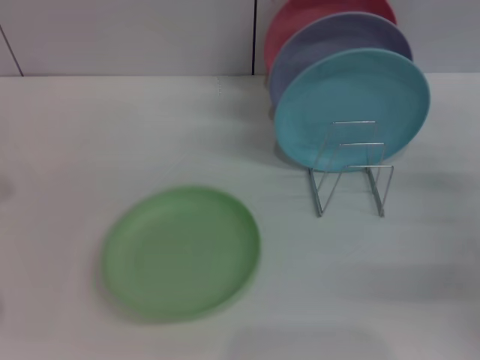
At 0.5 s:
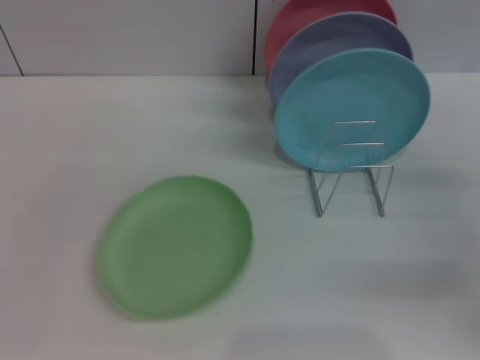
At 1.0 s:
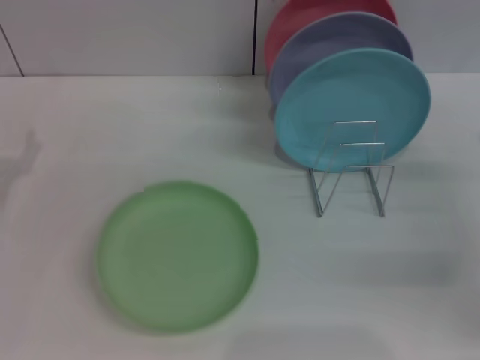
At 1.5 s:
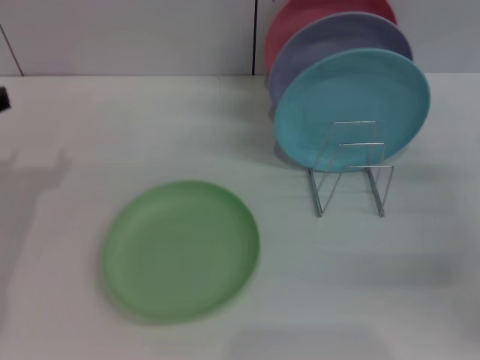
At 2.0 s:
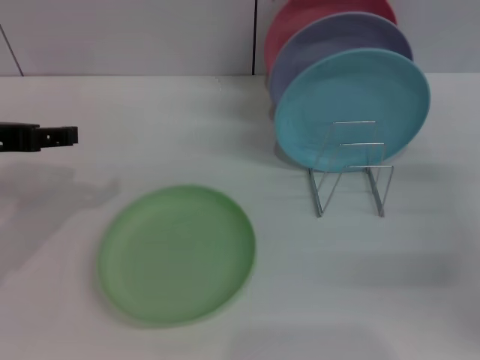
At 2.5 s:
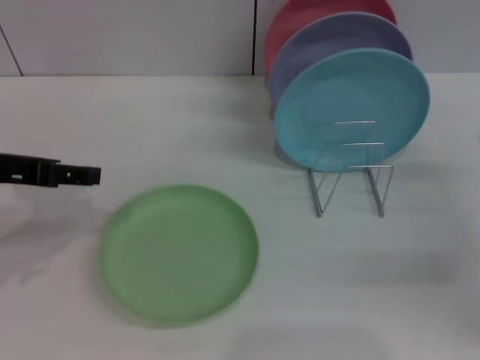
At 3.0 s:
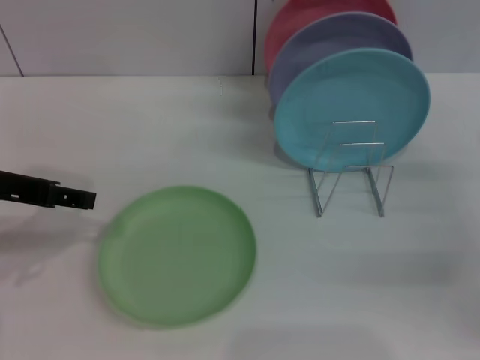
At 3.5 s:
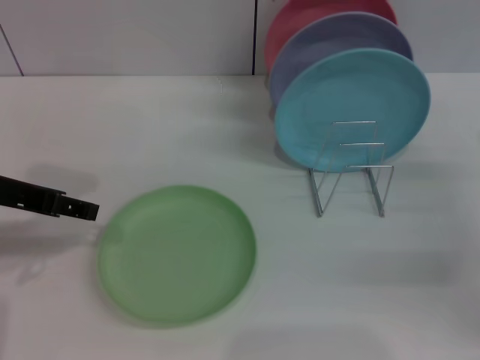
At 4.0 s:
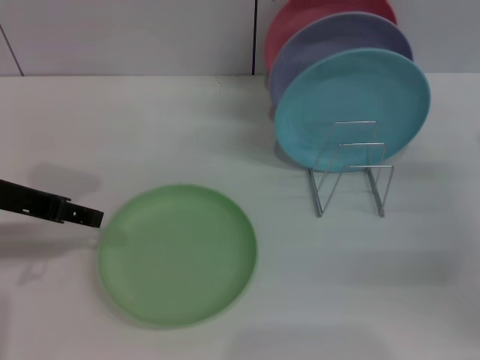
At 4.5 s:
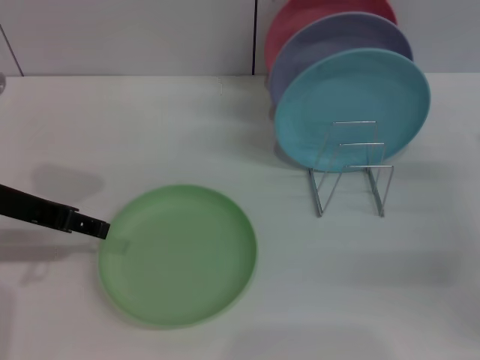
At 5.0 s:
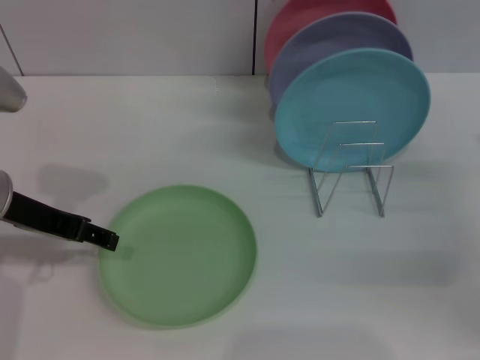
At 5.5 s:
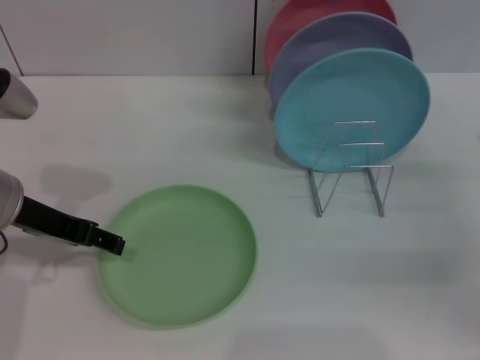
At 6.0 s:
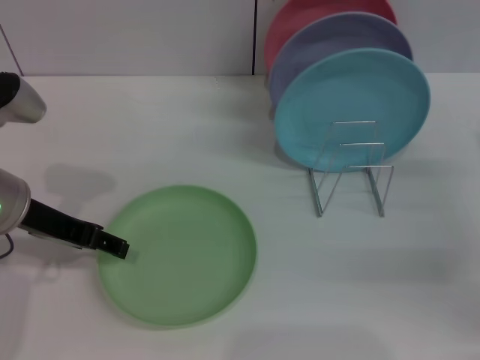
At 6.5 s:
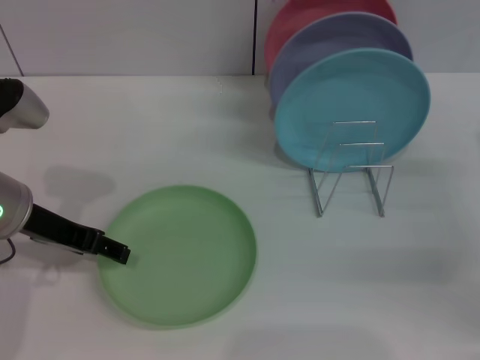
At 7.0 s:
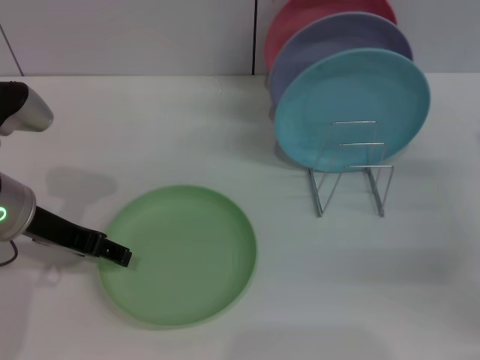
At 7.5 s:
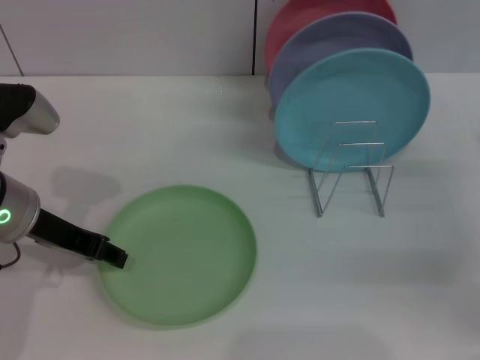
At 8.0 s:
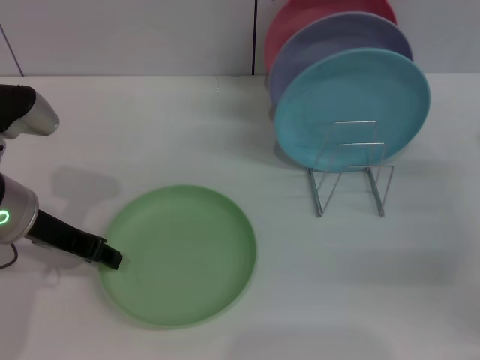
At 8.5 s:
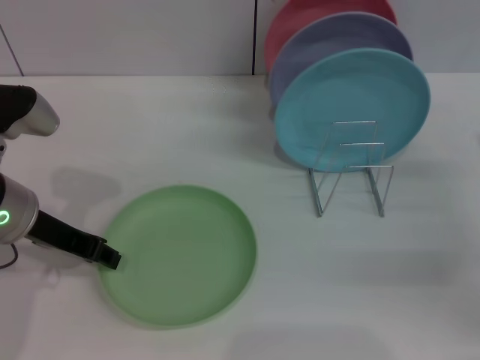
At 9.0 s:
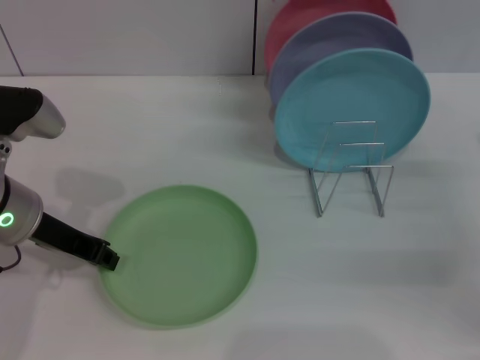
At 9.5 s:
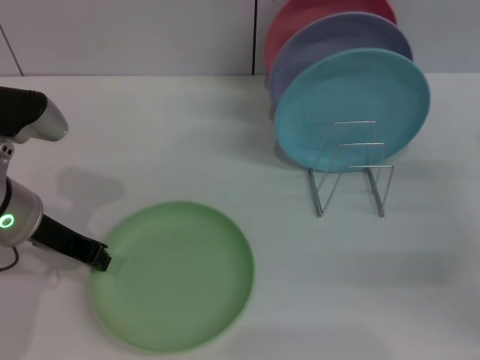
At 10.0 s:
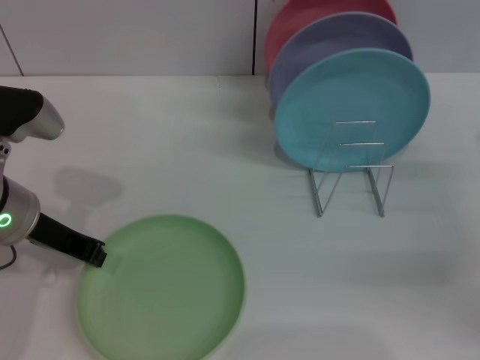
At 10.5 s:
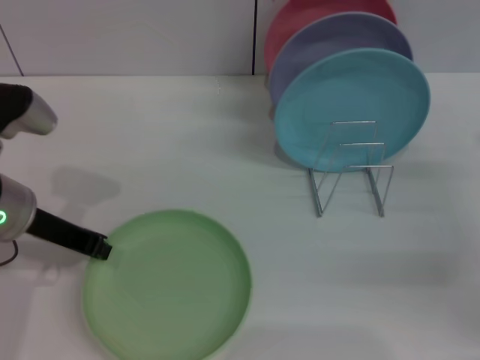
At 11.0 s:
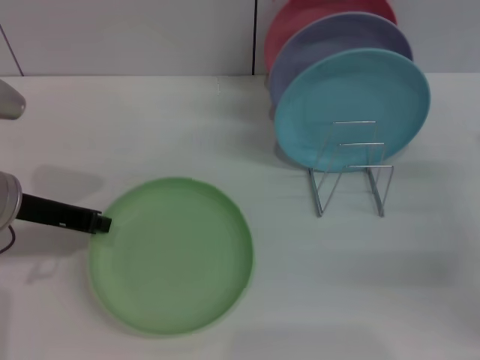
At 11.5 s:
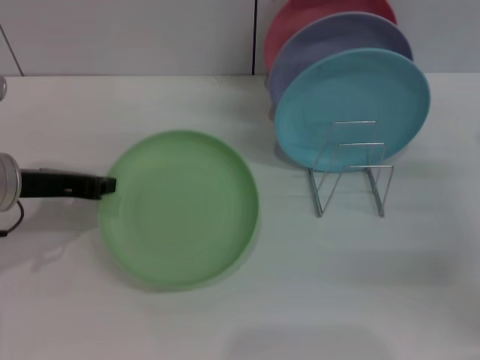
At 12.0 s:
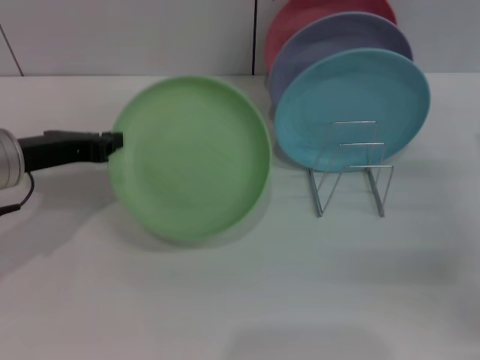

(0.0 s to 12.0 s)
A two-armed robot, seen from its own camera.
Task of the whole recording: Grip the plate with one hand, pass it to the other, then set it on the shelf.
Step, 0.0 s - 11.5 s: Pick up the plate with the left gripper.
0.0 s - 2.0 s: The left gripper is displaced to the right by some 10 cm.
4.0 s - 6.0 s: The left gripper changes place by about 5 cm.
6.0 s - 8.0 s: Neither gripper changes place.
8.0 s - 10.0 s: The left gripper closes.

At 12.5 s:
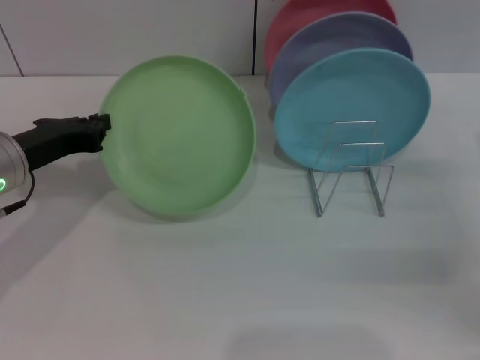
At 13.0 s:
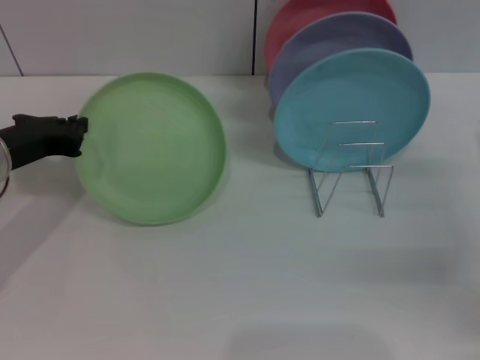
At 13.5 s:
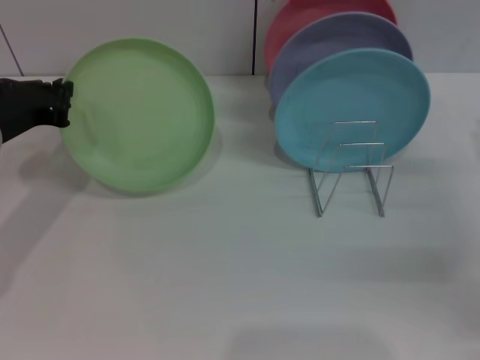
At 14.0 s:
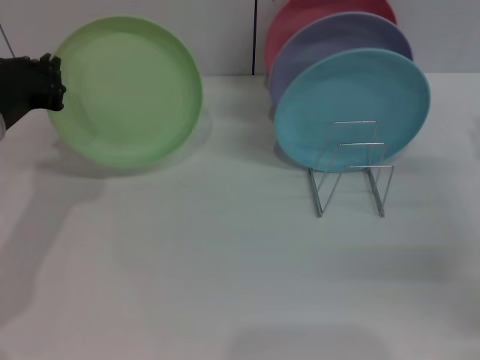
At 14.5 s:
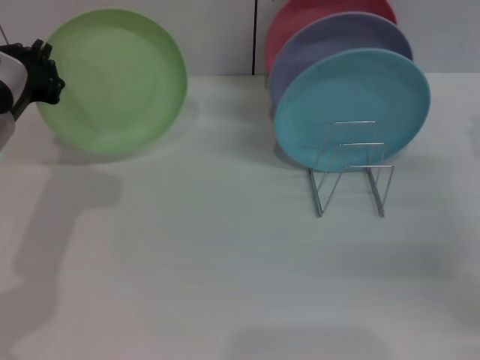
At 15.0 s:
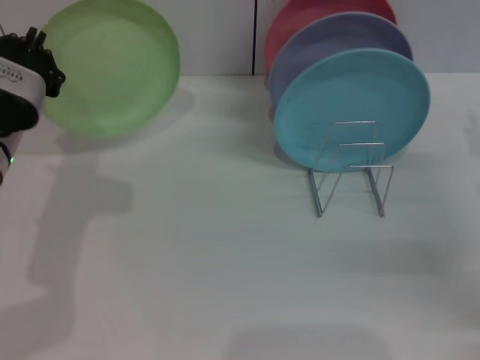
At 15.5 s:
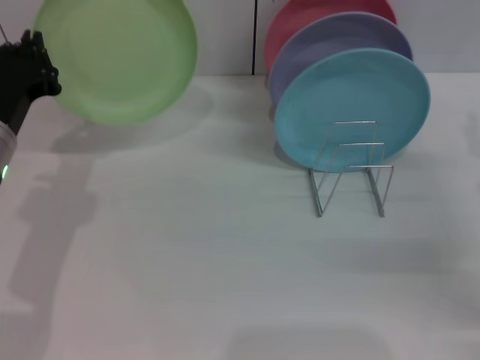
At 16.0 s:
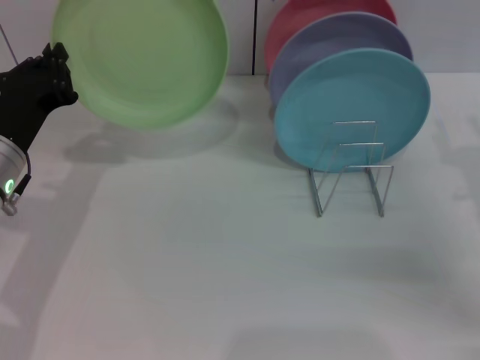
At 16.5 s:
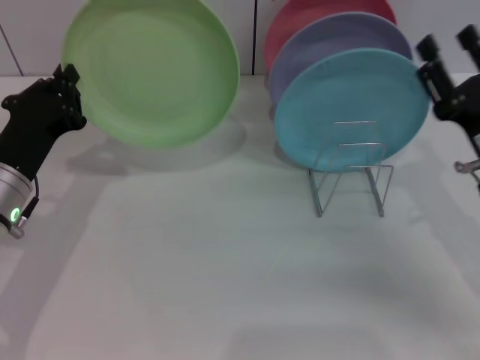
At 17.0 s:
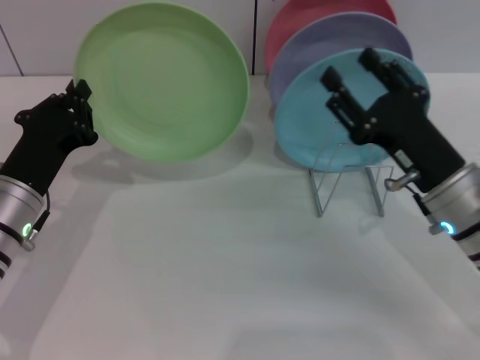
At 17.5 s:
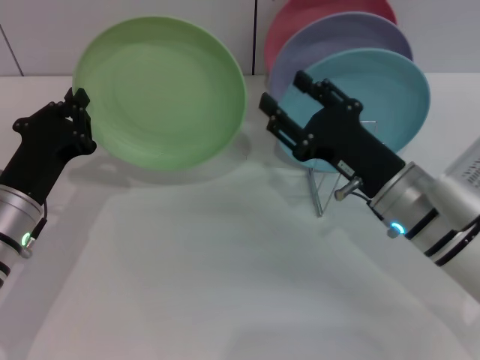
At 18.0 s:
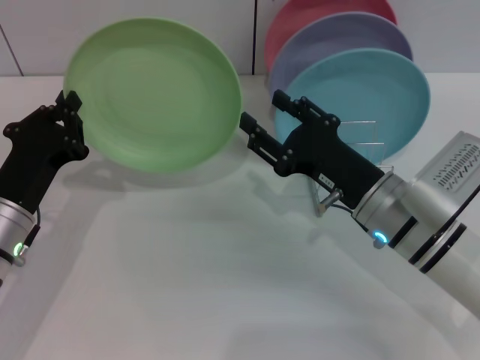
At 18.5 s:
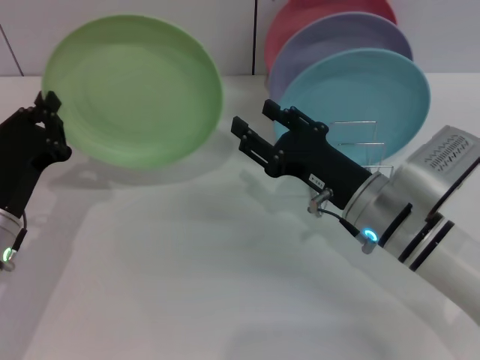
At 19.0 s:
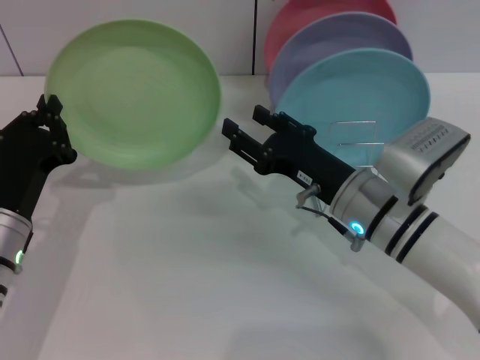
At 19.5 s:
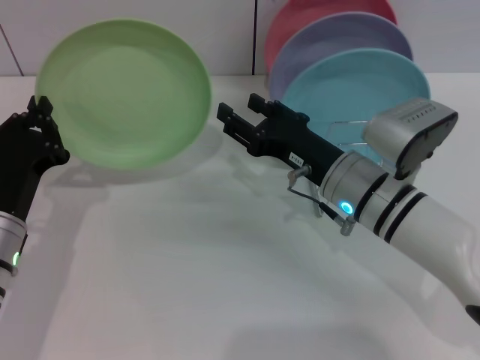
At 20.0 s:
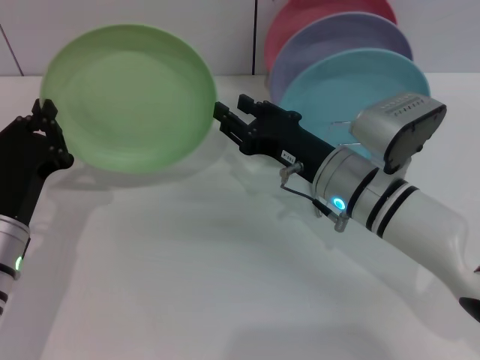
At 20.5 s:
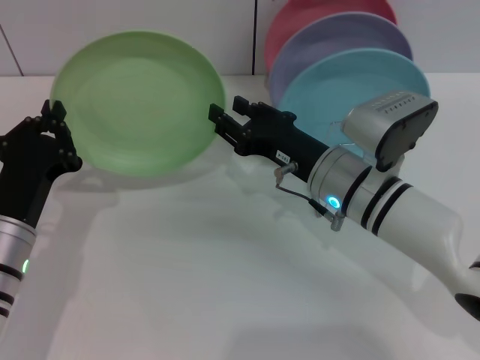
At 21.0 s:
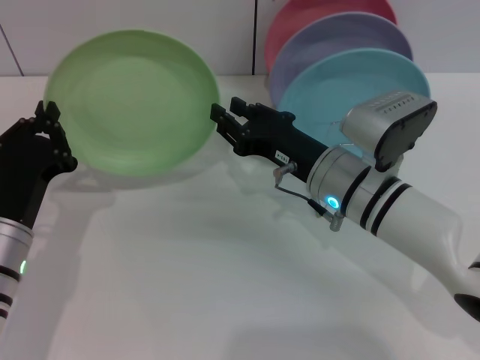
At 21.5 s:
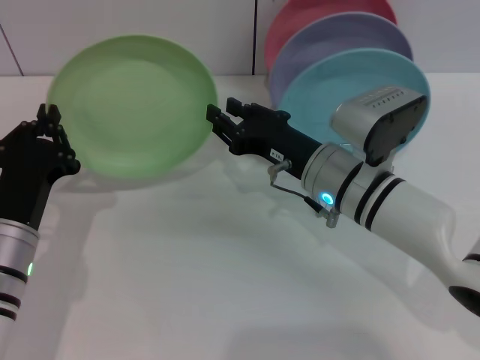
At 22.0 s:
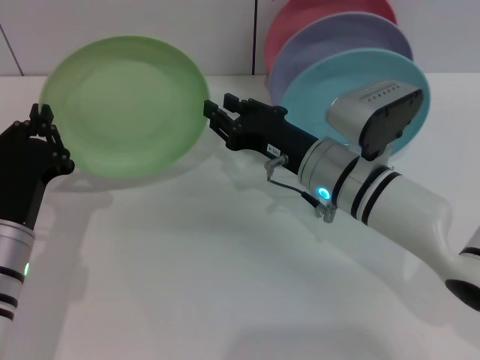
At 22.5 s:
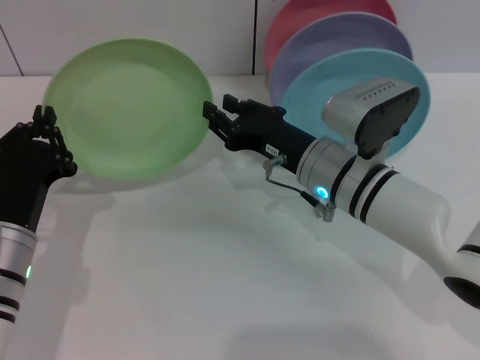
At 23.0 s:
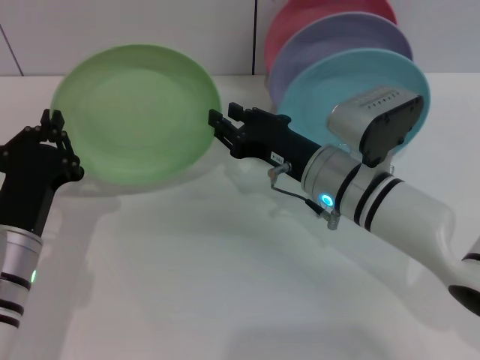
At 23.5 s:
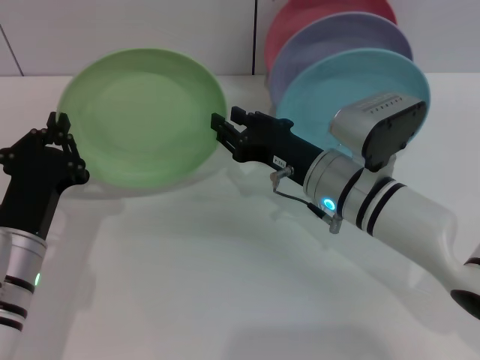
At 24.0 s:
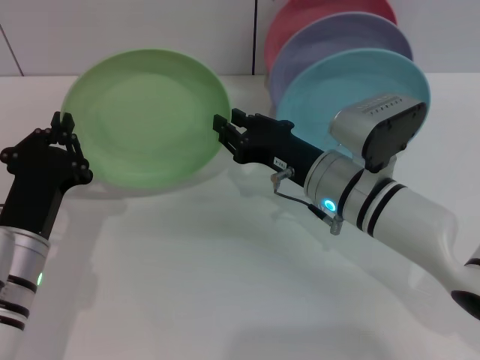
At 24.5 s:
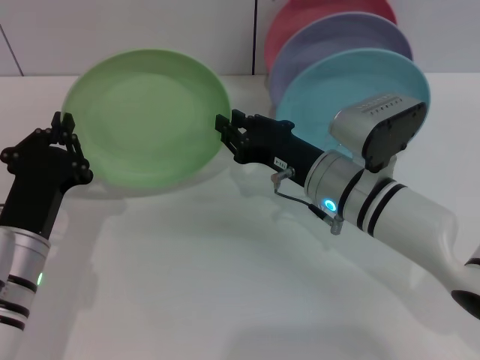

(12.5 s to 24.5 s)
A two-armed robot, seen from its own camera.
Task of the whole recording: Grip the plate with one hand, pass it to the other, then set it on the shelf.
14.5 s - 16.5 s: The right gripper travels to the left by some 5 cm; the left gripper moves downward, some 5 cm.
16.5 s - 18.5 s: The right gripper heads to the left, covering about 10 cm.
18.5 s - 24.5 s: The grippers make only small movements.

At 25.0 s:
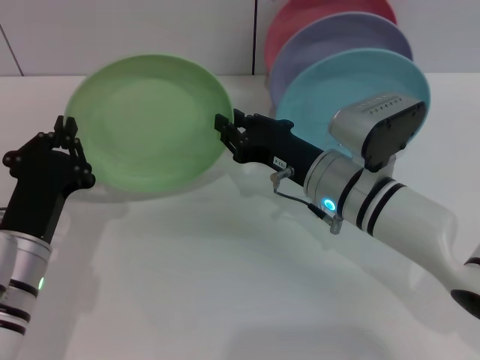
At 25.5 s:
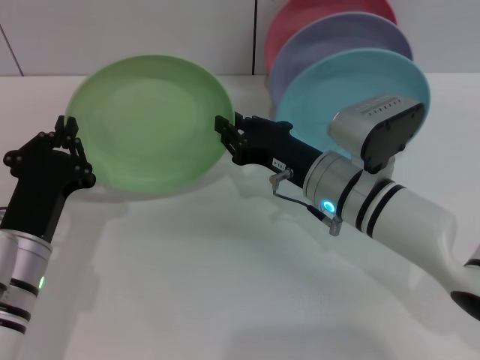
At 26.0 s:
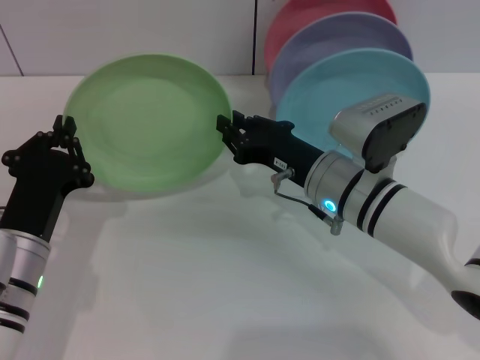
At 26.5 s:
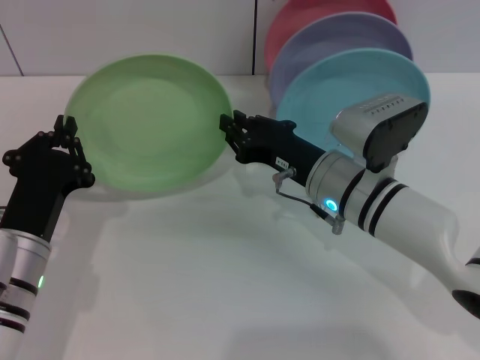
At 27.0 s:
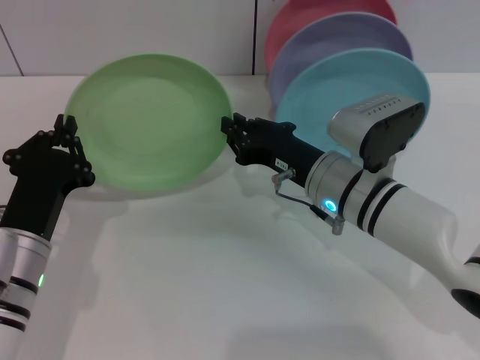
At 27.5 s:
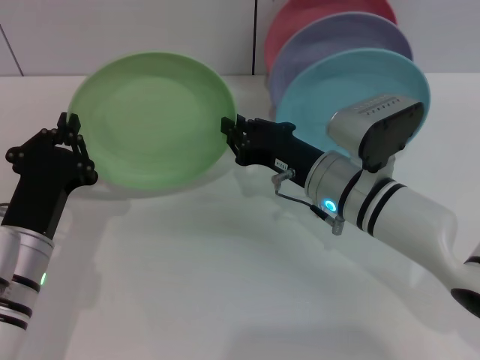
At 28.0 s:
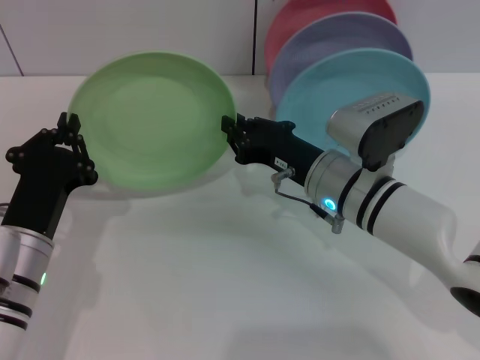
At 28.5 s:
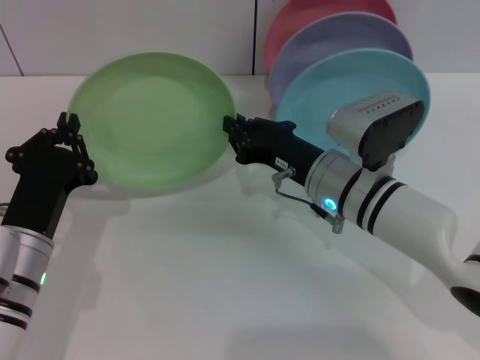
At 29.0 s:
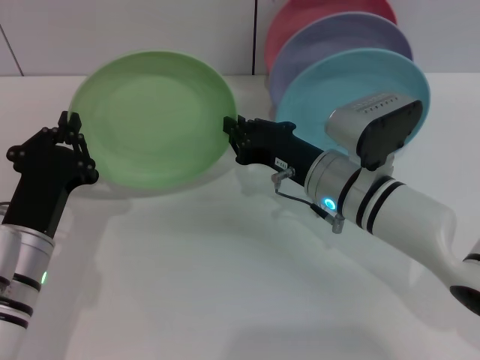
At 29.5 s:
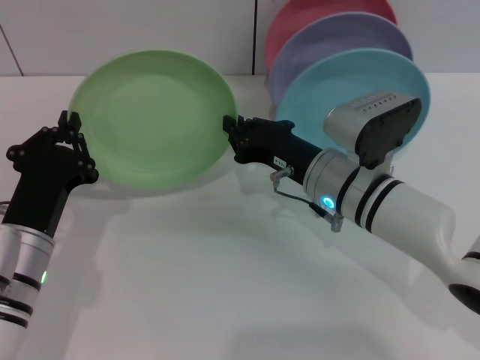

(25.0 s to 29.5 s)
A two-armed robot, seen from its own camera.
Task of the whole recording: Grip the plate with one hand, pass it to the other, then set it on the shelf.
25.0 s - 29.5 s: The two grippers keep their place.
